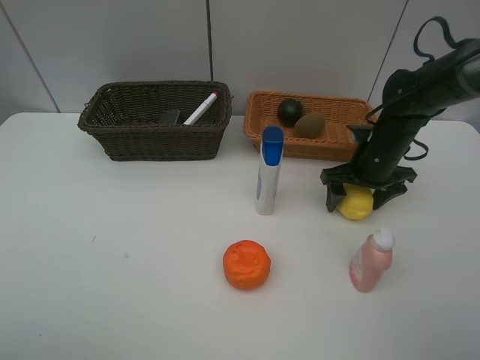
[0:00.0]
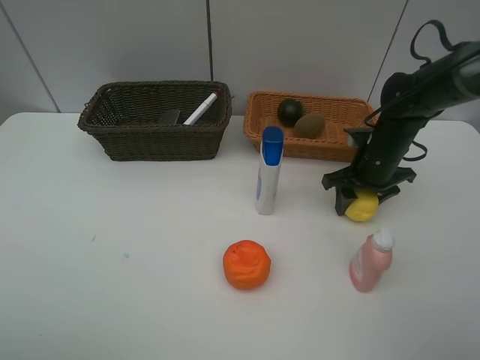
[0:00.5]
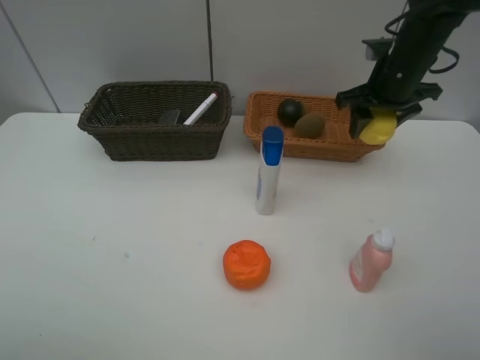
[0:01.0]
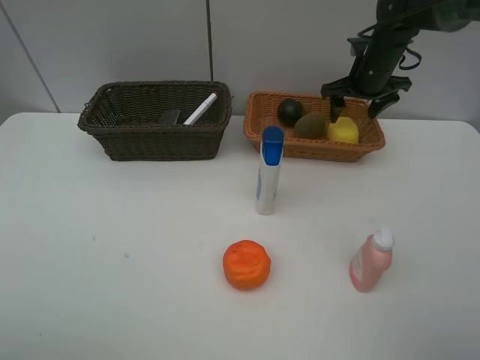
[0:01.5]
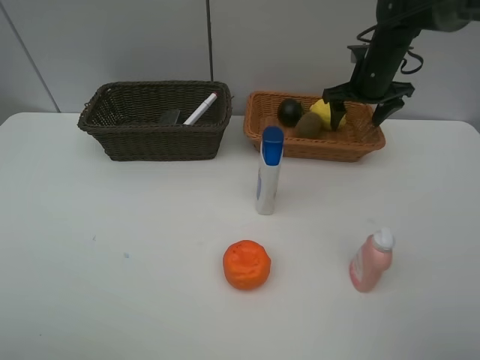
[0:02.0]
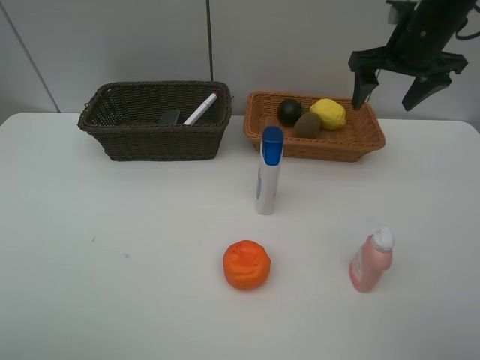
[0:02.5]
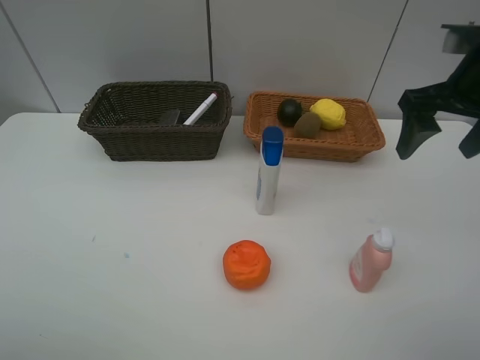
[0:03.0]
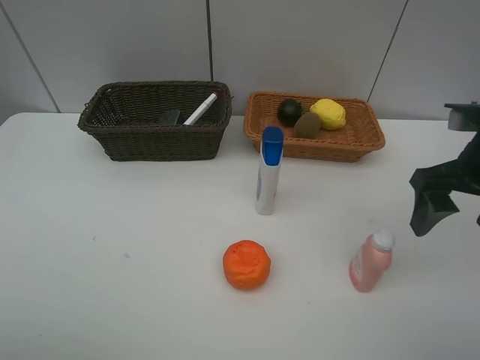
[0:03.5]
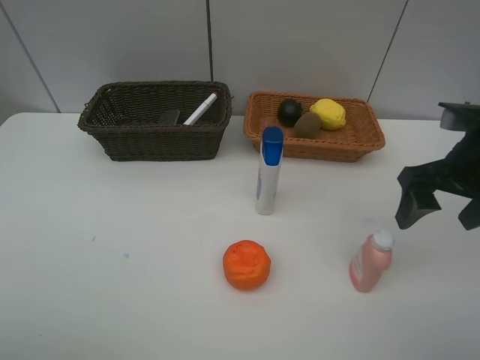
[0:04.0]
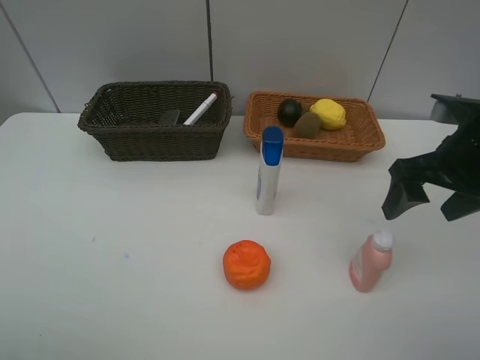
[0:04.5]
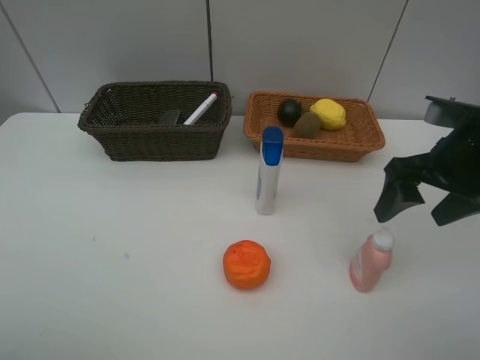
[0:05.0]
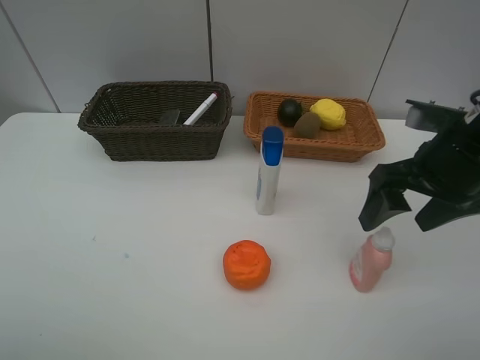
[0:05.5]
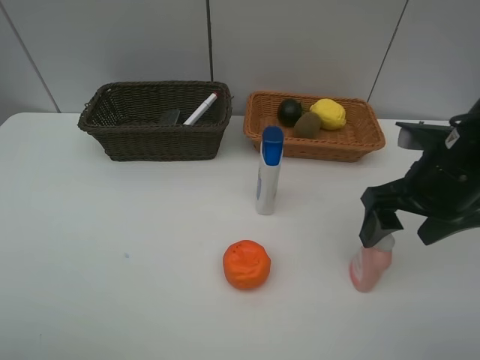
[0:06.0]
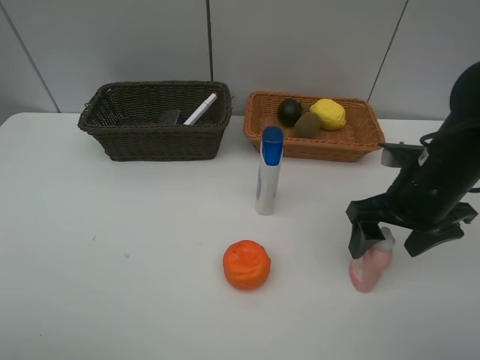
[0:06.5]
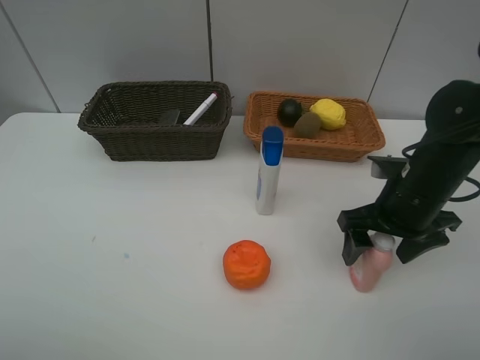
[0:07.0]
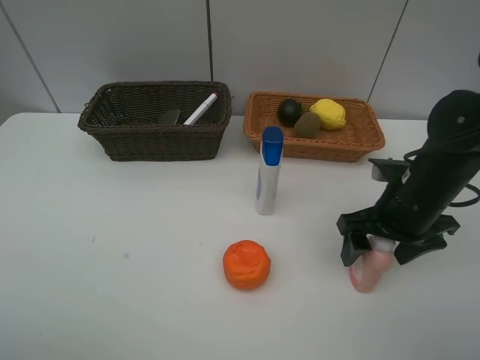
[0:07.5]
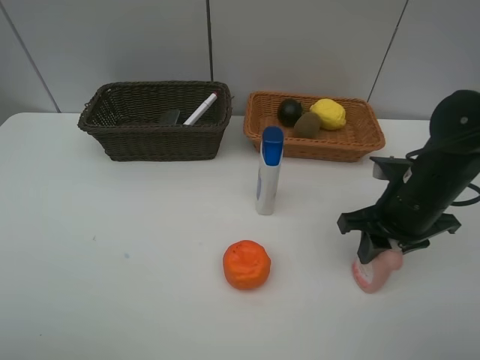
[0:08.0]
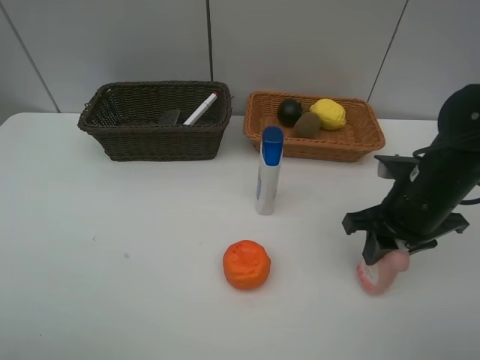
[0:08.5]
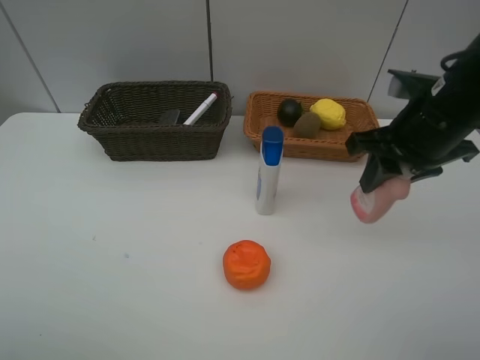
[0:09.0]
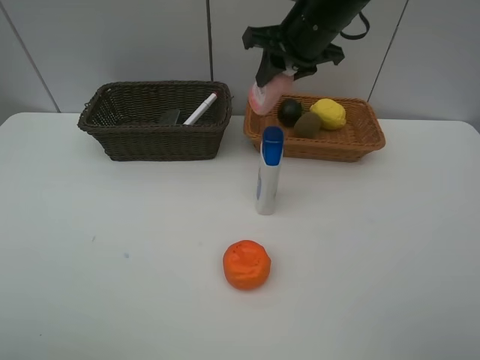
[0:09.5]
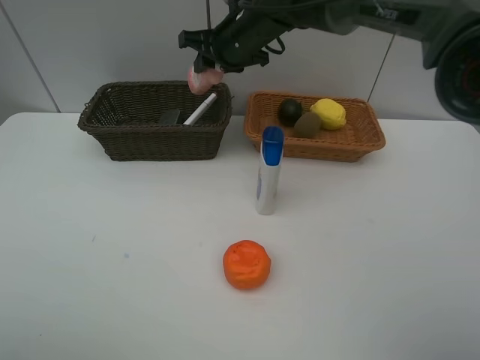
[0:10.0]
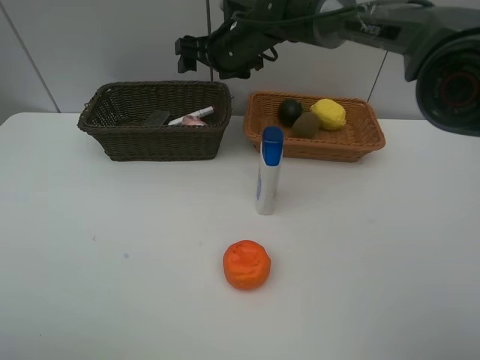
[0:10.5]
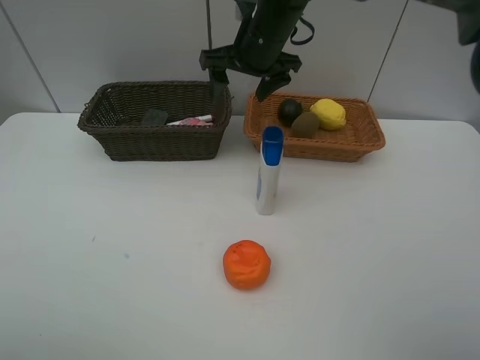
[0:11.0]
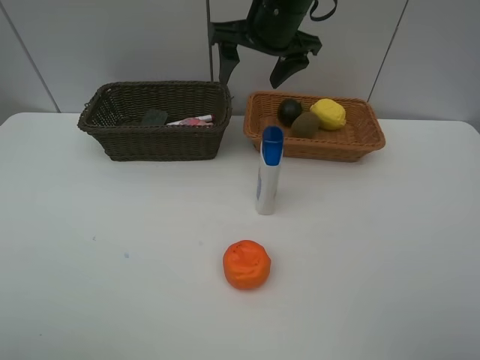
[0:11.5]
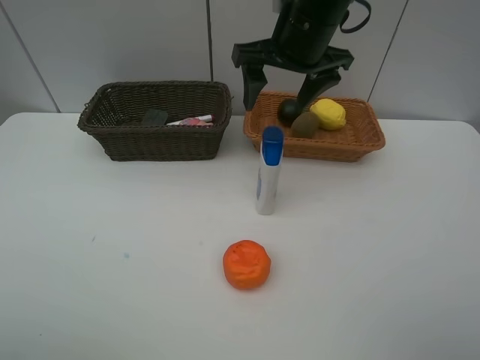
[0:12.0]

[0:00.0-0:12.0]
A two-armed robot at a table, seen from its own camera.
Task of the whole recording: Place multiple objects separately in different baskets.
Step, 0:01.0 to 0:01.5: Place the lemon in the light basket with right gripper.
Step, 0:02.0 to 0:08.5: Pick up the laundry detergent with right gripper.
Step, 0:09.0 to 0:10.5: Place the laundry detergent in the dark basket with right gripper.
0:00.0 to 0:02.0: The right gripper is displaced forward and upward by approximately 15 cm, and closes, then opens again.
0:02.0 to 0:04.0: The right gripper is displaced backward by some 25 cm.
0:04.0 to 0:06.0: The grippers make only small movements.
0:06.0 to 0:08.0: The right gripper goes approximately 5 cm downward, and closes.
0:08.0 to 0:10.0: The right gripper goes roughly 35 cm forward, to the left and upward.
0:10.0 to 0:12.0: The right gripper travels backward, to the right and upward by roughly 15 cm, and opens its fingers.

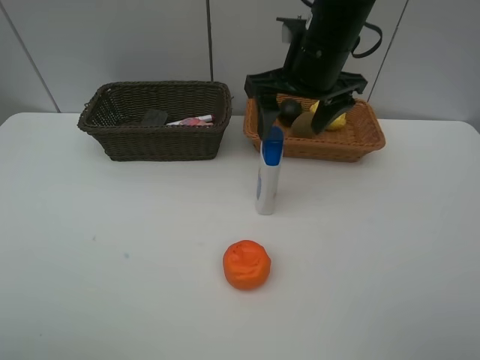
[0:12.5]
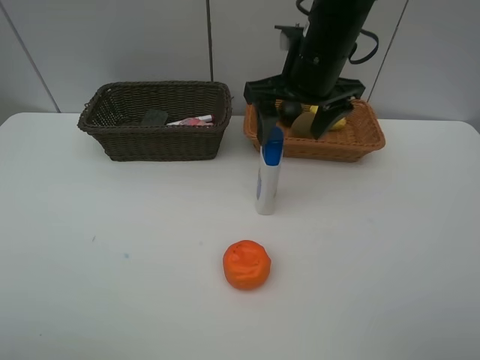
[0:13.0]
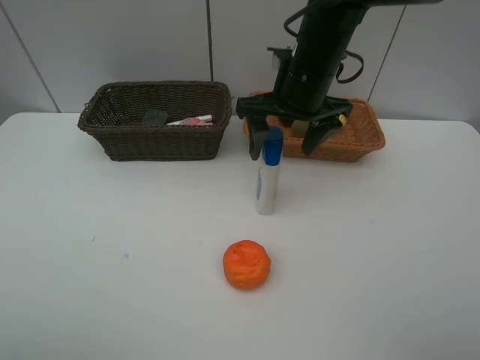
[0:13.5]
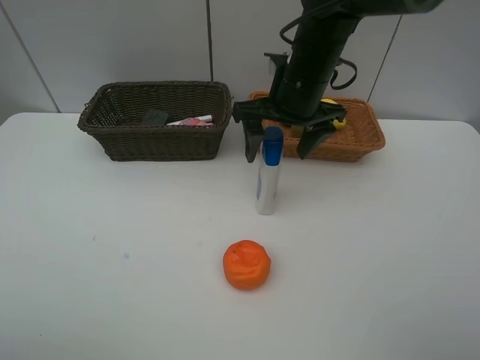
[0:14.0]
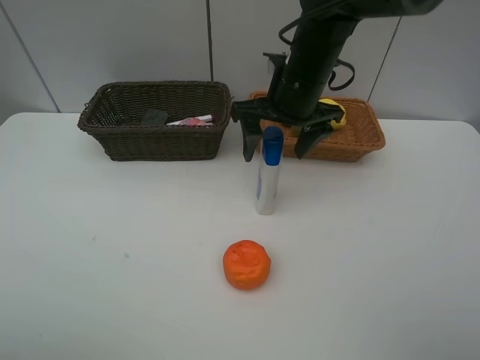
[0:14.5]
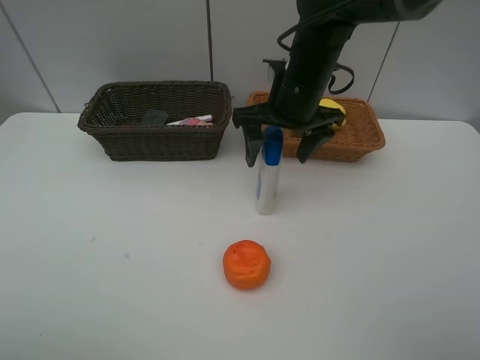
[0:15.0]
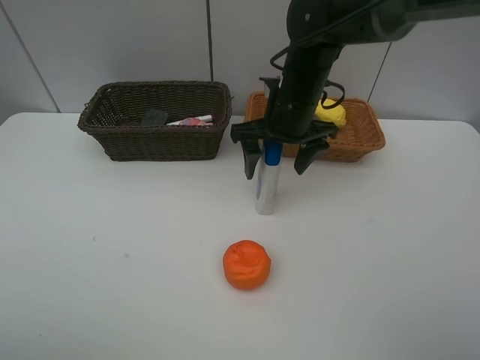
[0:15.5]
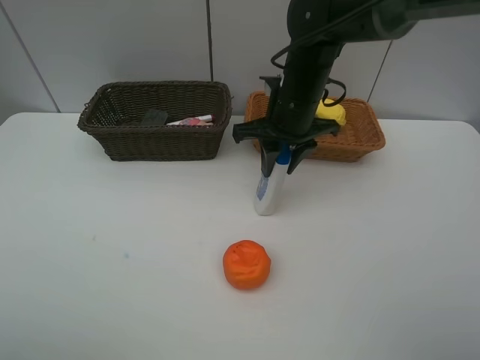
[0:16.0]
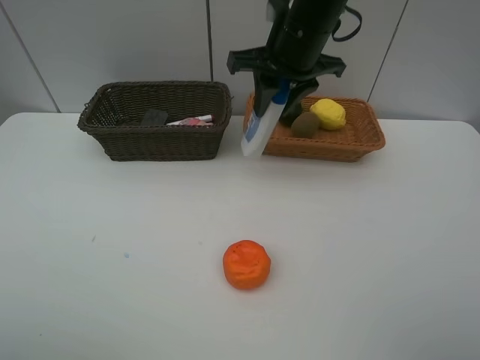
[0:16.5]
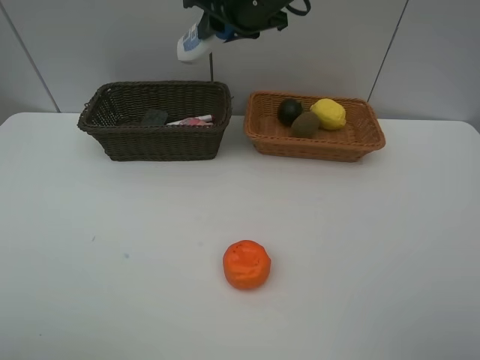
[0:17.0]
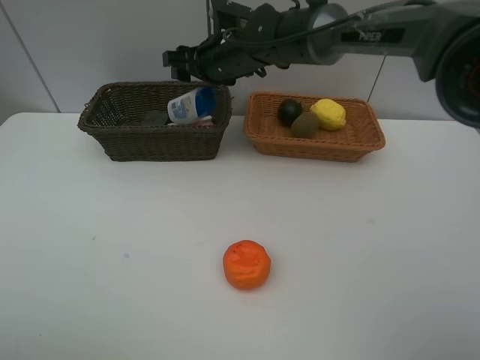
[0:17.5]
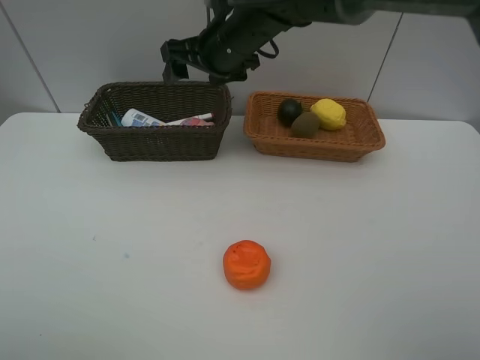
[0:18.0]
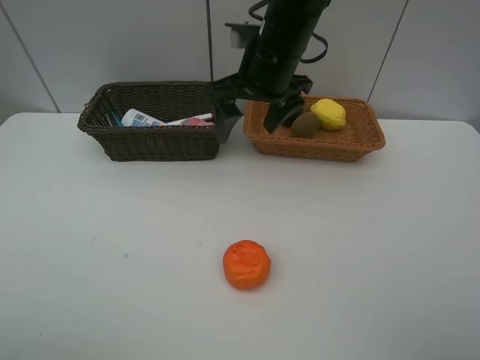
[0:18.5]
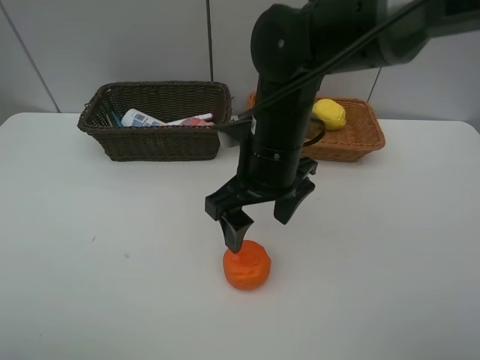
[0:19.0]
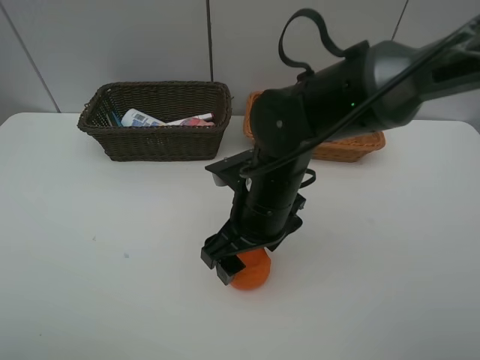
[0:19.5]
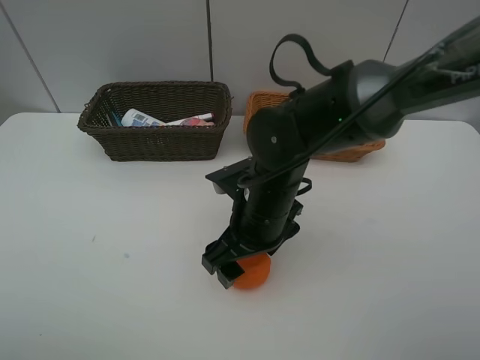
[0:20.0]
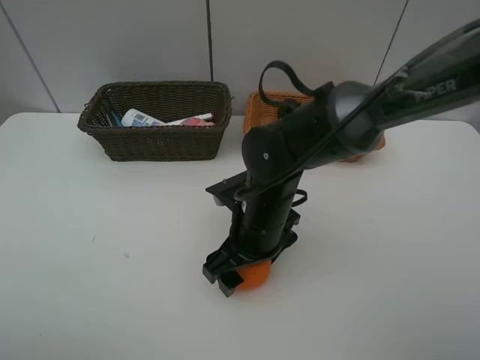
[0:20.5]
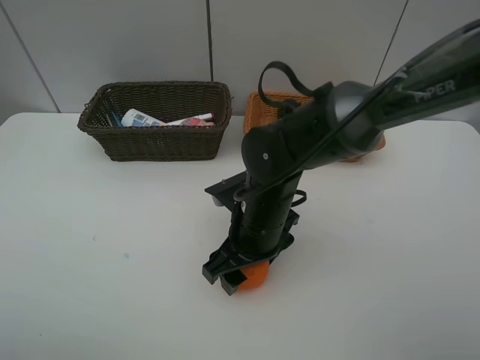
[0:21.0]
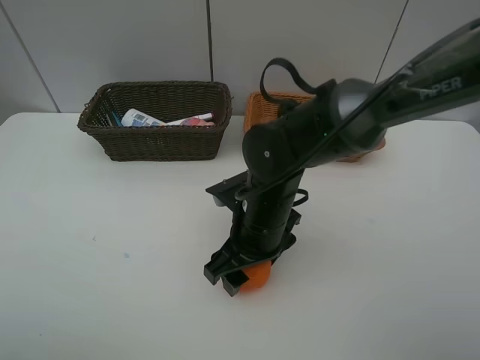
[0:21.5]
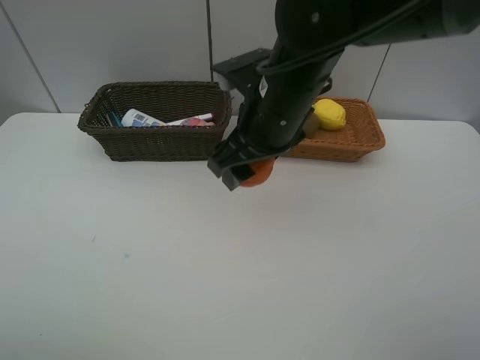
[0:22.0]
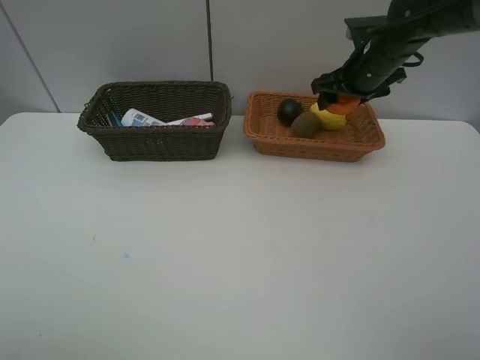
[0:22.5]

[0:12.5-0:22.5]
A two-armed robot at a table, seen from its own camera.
Task of the whole recording: Place multiple objects separately in different baskets.
Step, 0:12.5 to 0:16.0: Pick up the shampoo with right gripper.
Step, 0:16.5 to 0:17.5: Place the shampoo in the dark basket with right gripper.
Step, 0:18.0 to 0:21.5: Pick up the orange with right gripper.
0:12.5 to 0:14.5: The grippers make only small movements.
0:14.5 to 0:16.5: The right gripper goes approximately 5 cm upward, and closes up.
0:16.5 to 0:18.5: The right gripper goes to the left and returns, some 10 cm each way, and opens up.
0:18.5 to 0:20.5: The right gripper shifts some 20 cm downward and backward.
0:20.5 to 0:22.5: The right gripper heads forward, to the right and upward, covering approximately 30 cm.

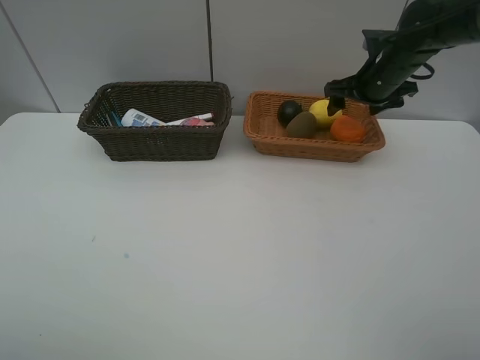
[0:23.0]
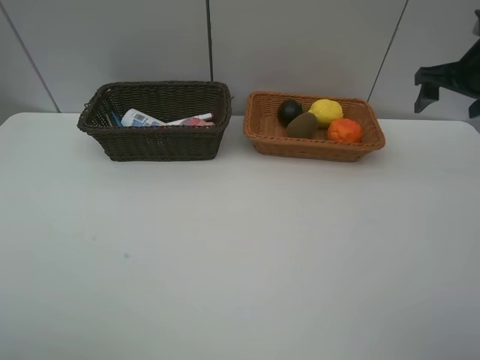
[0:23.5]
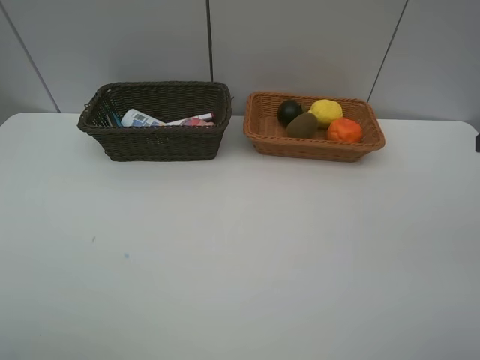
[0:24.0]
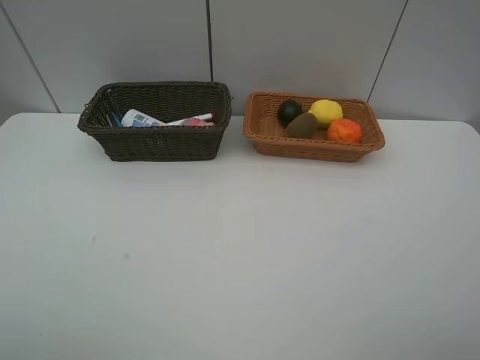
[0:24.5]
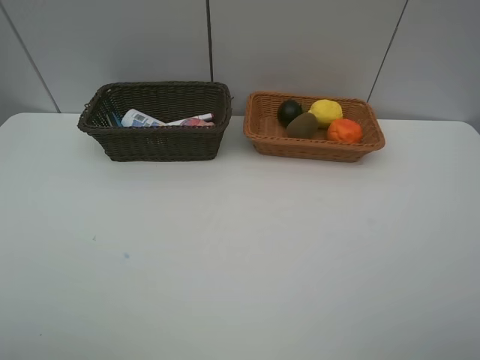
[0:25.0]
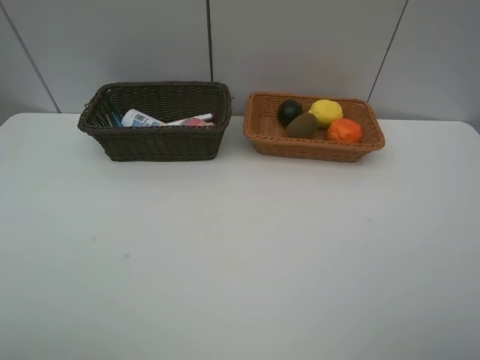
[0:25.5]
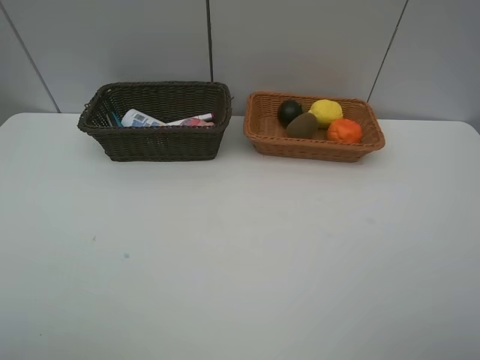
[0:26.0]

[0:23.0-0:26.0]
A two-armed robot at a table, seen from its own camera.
Task of the whole recording: Place multiple objects separately in different baskets.
0:23.0 to 0:24.5: The right gripper travels backward by approximately 40 cm.
